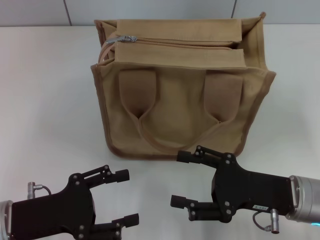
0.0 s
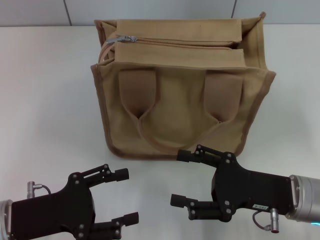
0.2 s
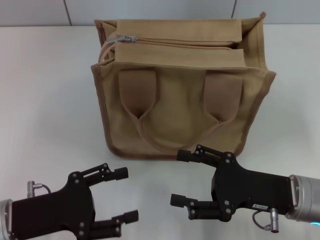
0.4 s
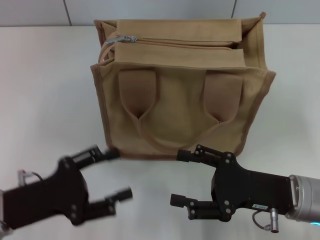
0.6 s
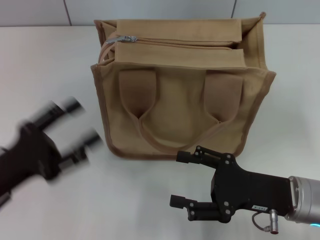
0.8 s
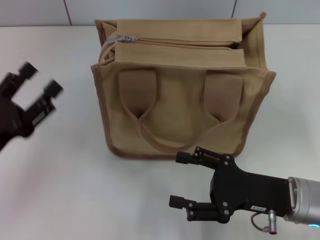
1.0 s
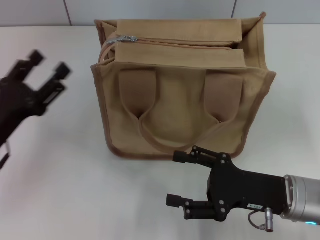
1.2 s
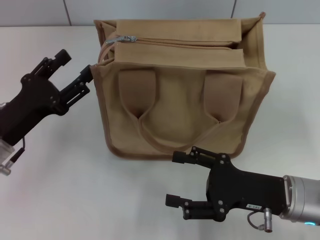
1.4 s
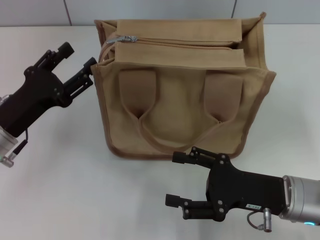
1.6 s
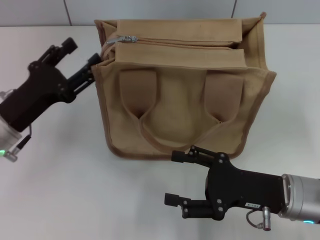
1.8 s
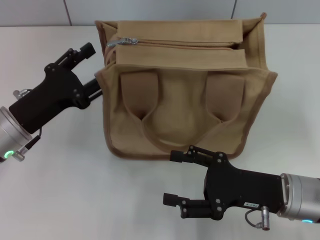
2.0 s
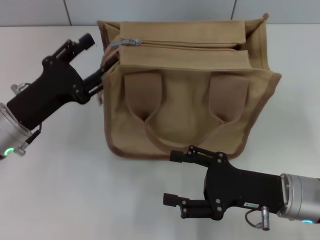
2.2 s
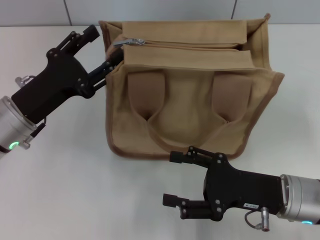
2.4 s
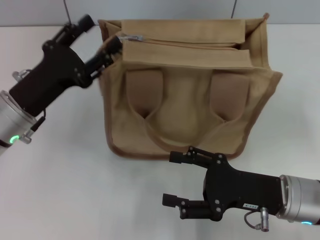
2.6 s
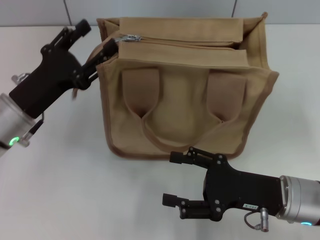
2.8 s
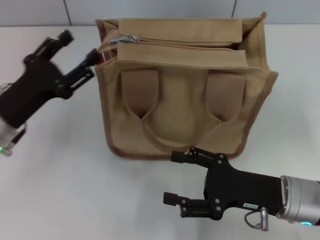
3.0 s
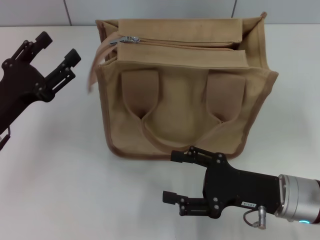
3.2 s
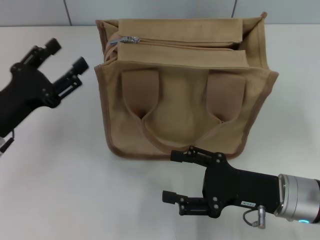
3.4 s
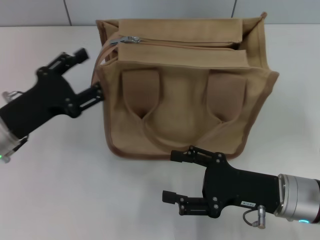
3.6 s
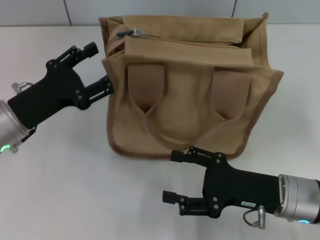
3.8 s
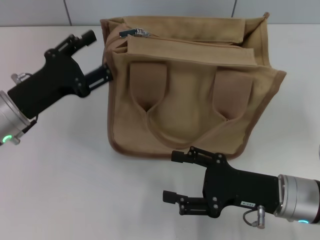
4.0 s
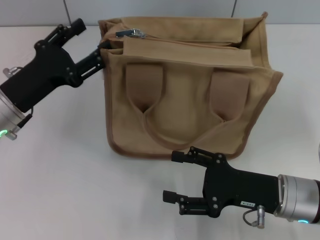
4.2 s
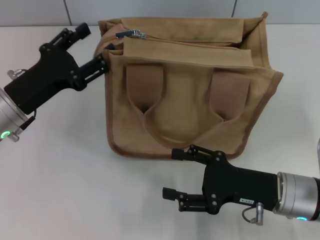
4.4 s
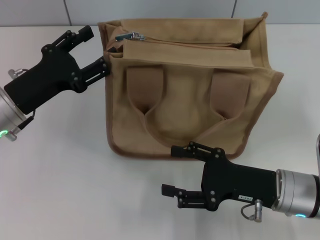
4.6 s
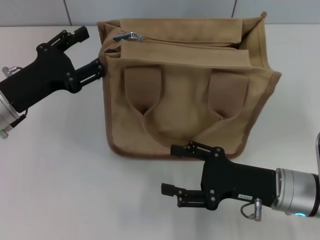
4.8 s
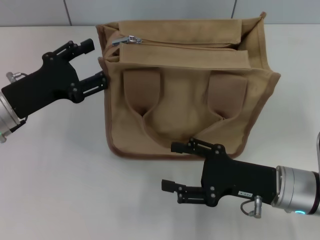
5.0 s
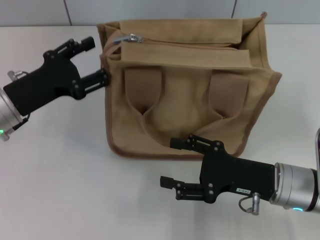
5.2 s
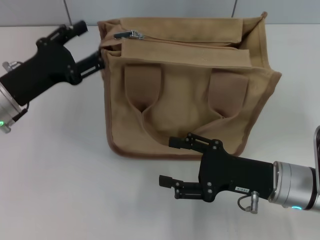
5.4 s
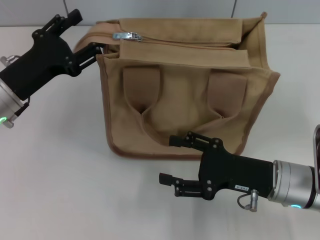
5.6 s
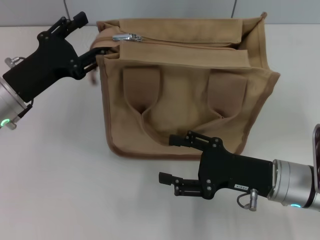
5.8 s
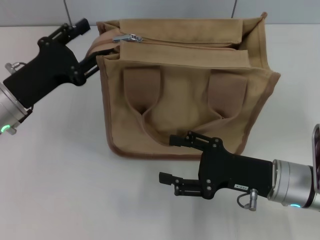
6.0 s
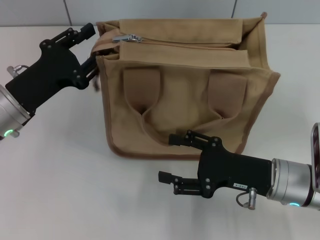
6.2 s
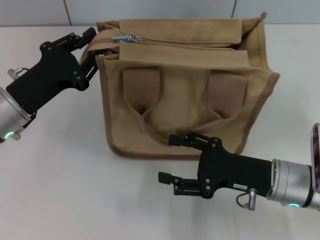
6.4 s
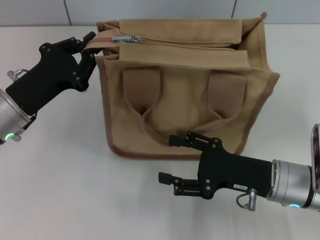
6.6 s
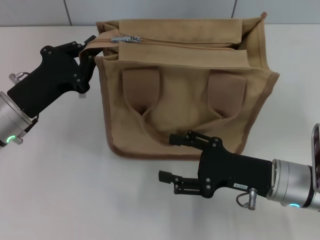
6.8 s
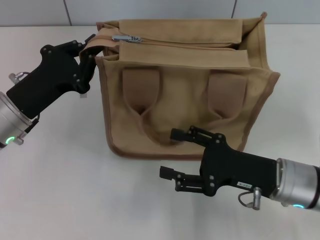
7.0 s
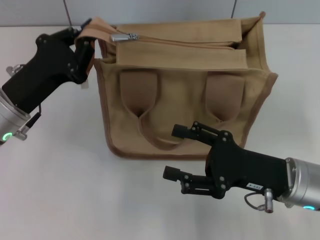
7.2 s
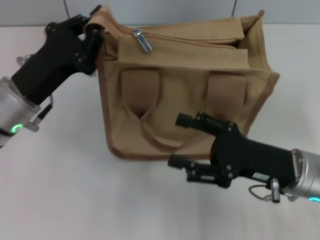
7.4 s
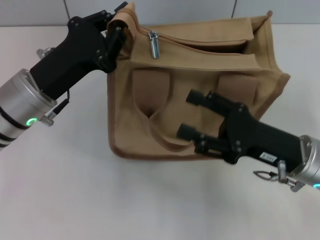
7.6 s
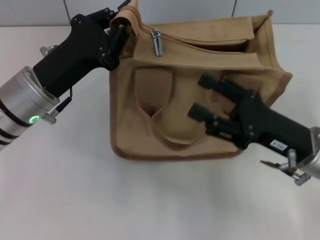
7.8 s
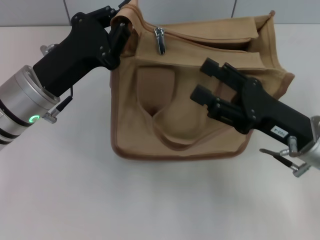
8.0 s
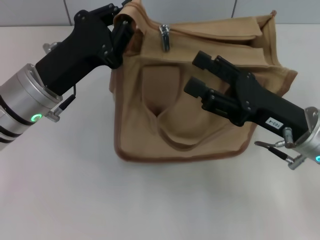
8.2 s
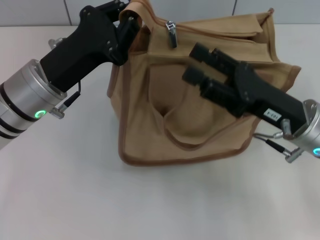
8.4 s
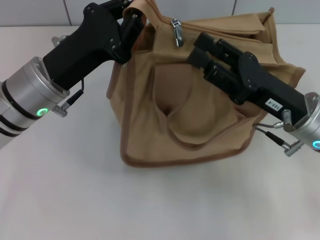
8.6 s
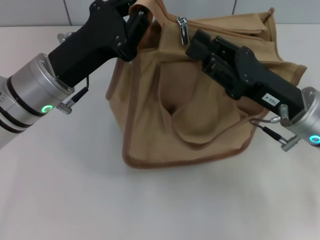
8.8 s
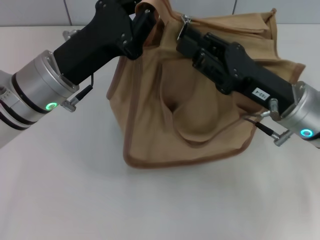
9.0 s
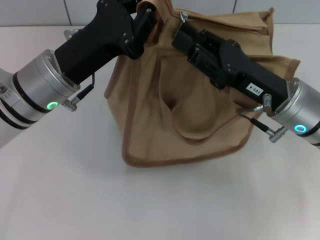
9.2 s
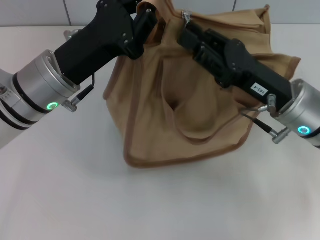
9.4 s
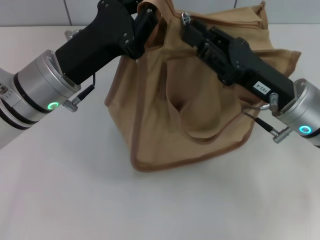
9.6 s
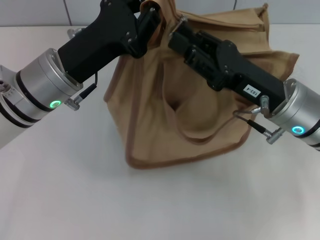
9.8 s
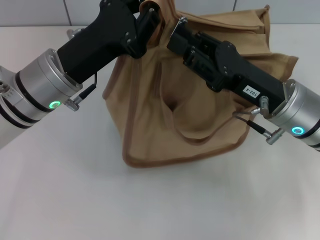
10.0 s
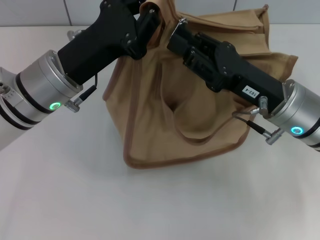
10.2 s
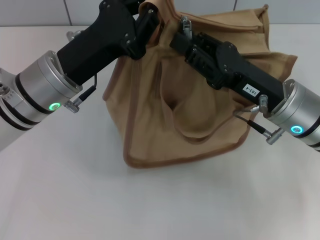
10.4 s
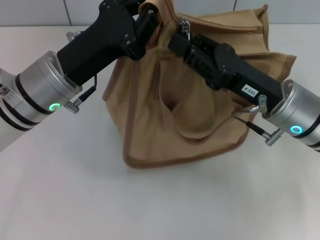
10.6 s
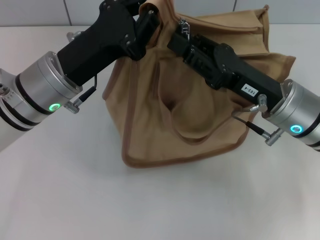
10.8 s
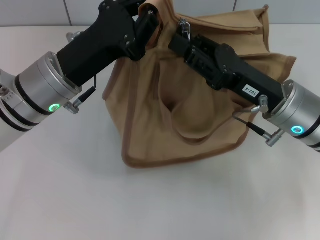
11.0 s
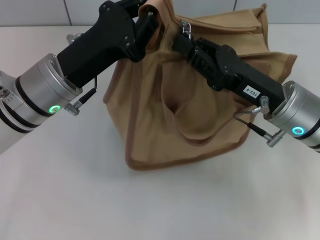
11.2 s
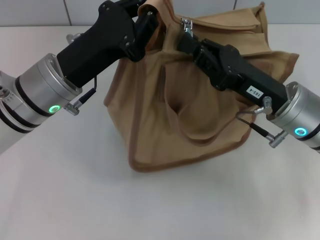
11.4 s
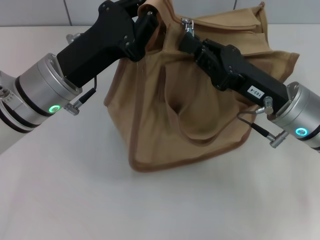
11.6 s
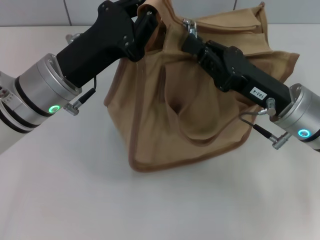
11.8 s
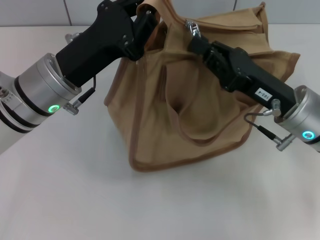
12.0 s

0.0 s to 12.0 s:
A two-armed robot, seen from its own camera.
0.0 to 1.6 s: The left gripper moves forward, roughly 10 cm.
1.6 to 6.0 s: There are only small adjustments of the grippers.
6.0 to 7.6 s: The left gripper ends up approximately 5 cm from where it was, and closes its fingers.
7.6 to 9.0 s: The right gripper ends up roughly 5 cm from where it was, and closes its fingers.
9.0 to 10.4 s: Neither gripper changes place.
10.4 to 12.0 s: The right gripper closes.

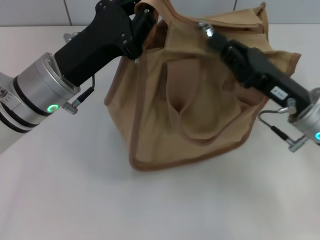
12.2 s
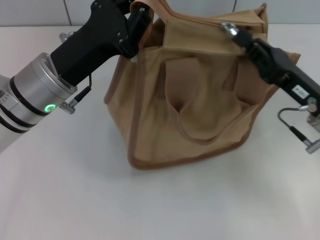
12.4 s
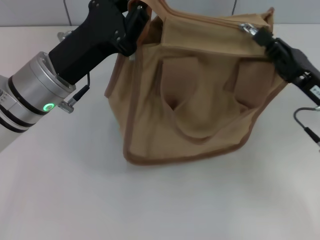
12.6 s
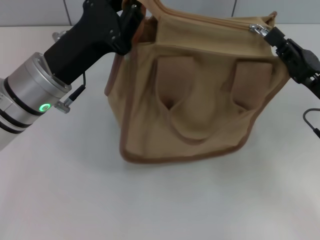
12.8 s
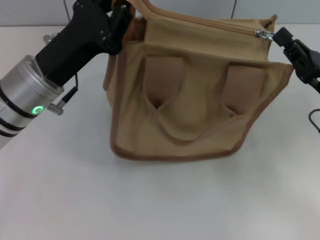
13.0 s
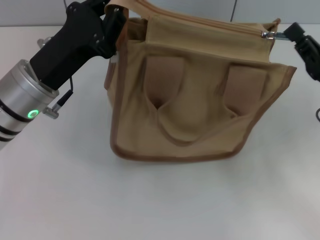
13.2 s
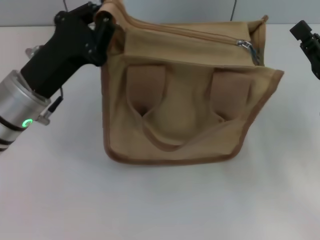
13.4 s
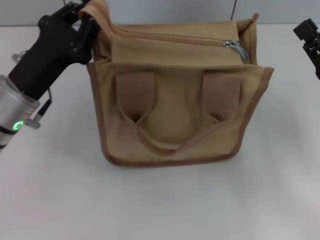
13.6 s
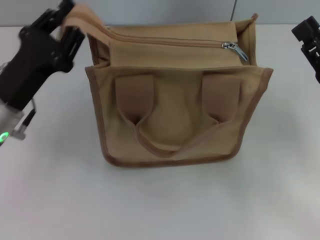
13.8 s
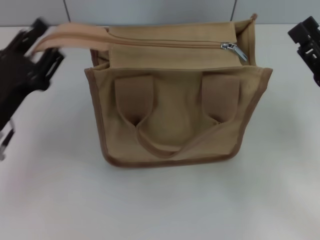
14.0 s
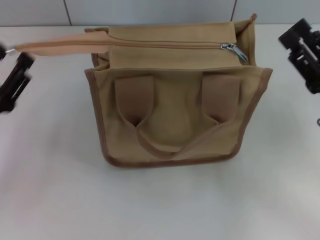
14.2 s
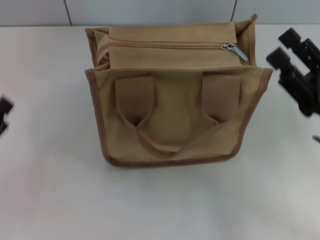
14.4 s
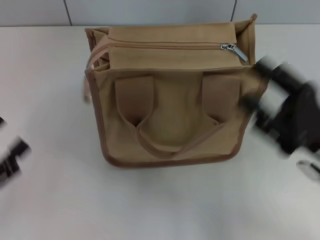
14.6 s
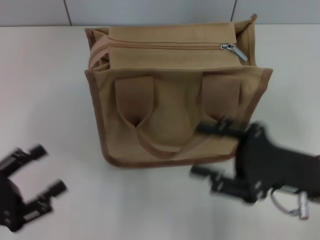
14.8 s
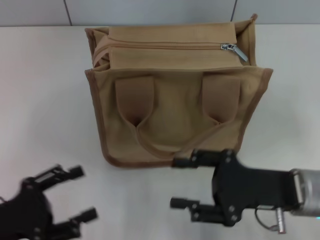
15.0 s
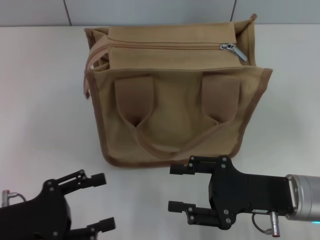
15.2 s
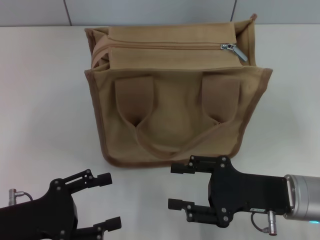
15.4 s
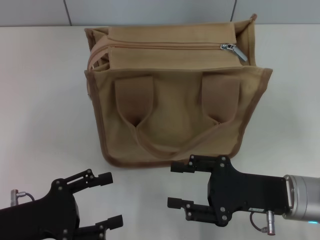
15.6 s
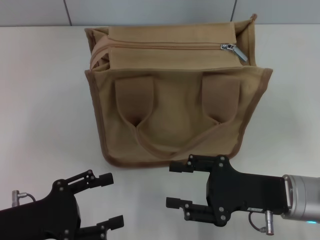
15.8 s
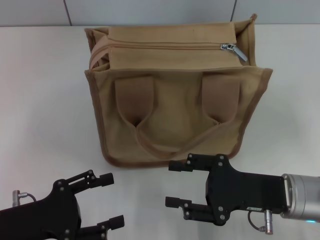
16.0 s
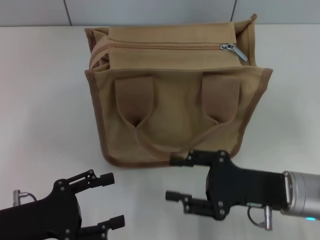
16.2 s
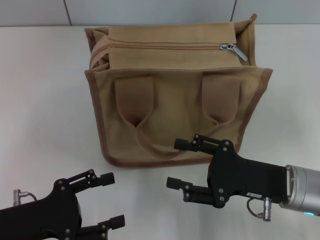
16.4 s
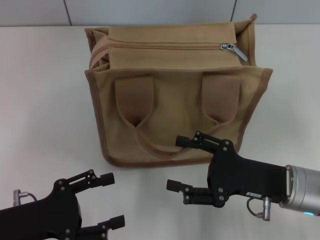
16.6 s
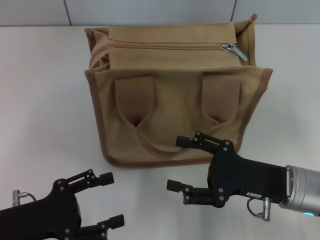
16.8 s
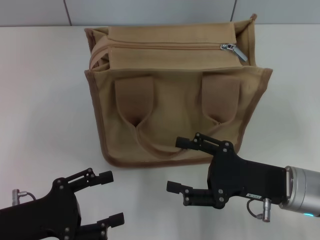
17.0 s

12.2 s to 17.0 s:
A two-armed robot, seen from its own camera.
Step, 13.4 to 14.2 s: Grab the zipper with your left hand.
12.2 to 13.8 s: The right gripper is displaced to the right by some 5 cm, and opens up, while the left gripper is displaced to the left by roughly 5 cm.
13.8 to 15.4 s: The left gripper moves backward, some 10 cm, and opens up. The right gripper travels to the left by about 10 cm, and opens.
15.4 to 17.0 s: The grippers stay close to where they were, moving slightly.

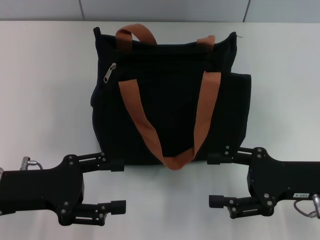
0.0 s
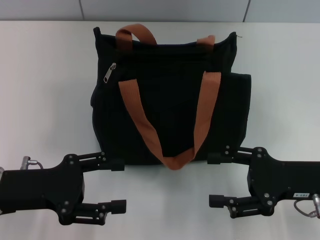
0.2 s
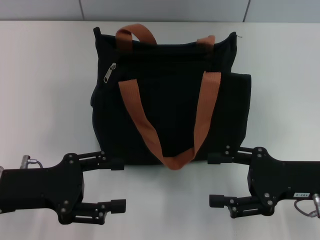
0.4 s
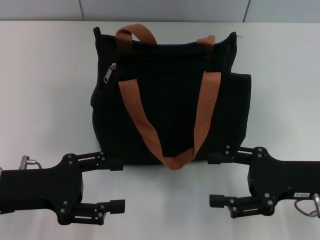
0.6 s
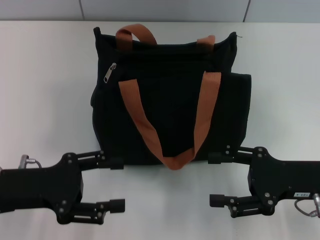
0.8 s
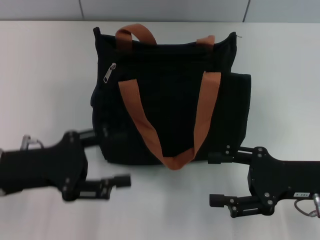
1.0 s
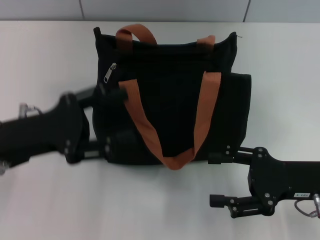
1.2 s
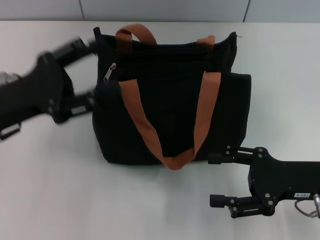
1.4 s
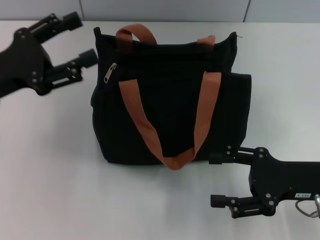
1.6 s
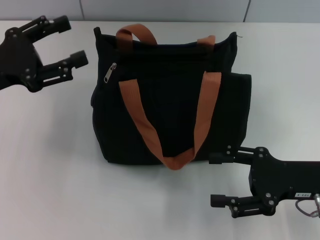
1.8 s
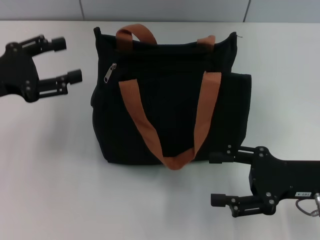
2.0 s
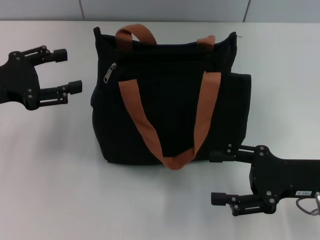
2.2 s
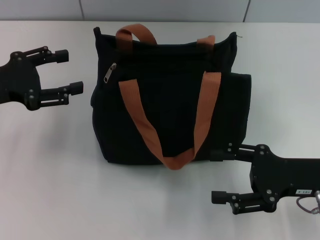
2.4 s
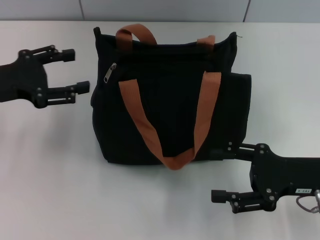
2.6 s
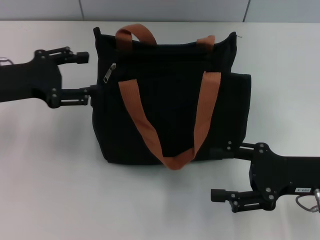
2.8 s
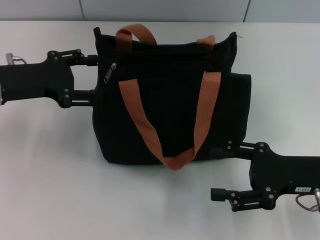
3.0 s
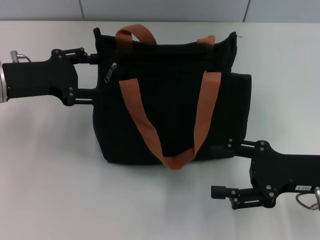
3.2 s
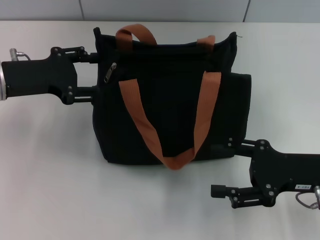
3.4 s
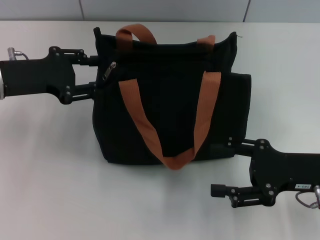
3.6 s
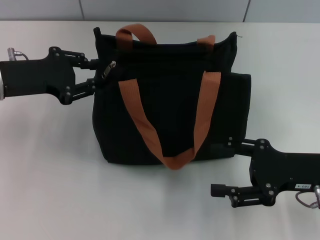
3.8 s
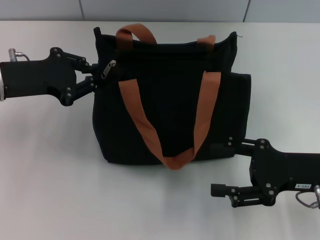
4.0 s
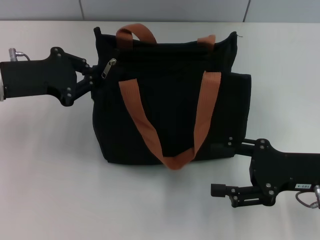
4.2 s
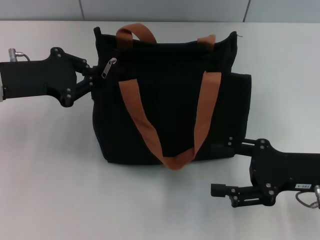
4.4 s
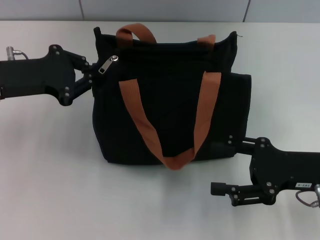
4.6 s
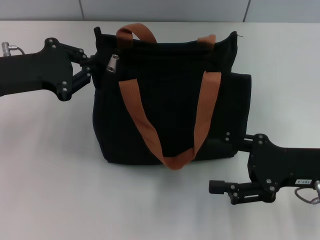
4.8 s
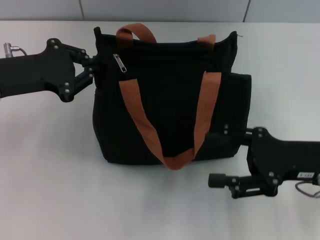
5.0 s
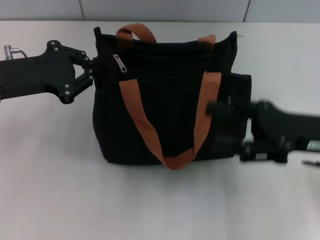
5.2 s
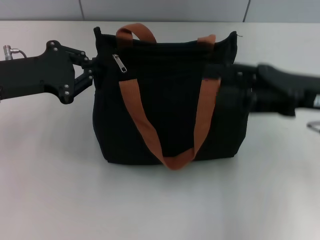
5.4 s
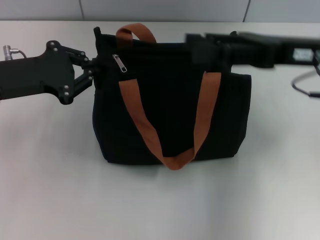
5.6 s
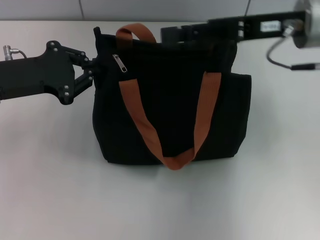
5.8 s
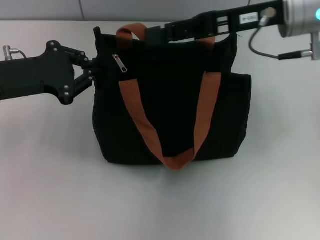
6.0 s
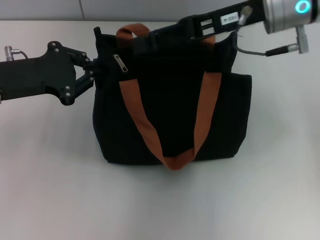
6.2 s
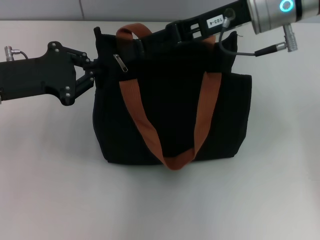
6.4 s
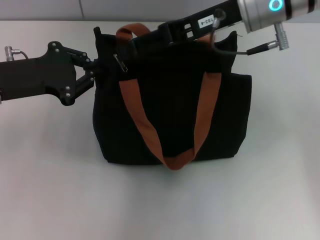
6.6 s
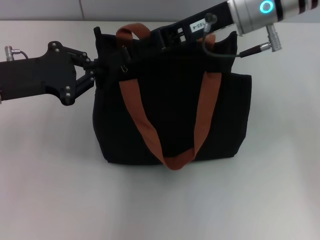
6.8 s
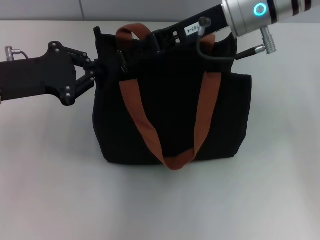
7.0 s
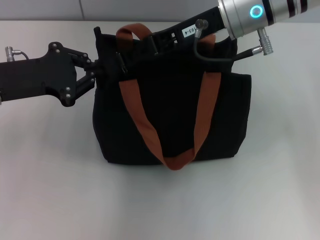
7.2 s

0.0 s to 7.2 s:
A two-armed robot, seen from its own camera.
0.0 to 1.4 s: The left gripper ends up some 5 cm from where it was.
1.4 to 2.8 s: The left gripper heads forward, covering approximately 5 cm.
2.8 to 4.4 s: The left gripper closes its fingers.
4.4 to 5.8 s: The right gripper is displaced upward, forward and to the left by roughly 20 cm.
5.8 to 7.2 s: The right gripper shifts roughly 10 cm to the left.
